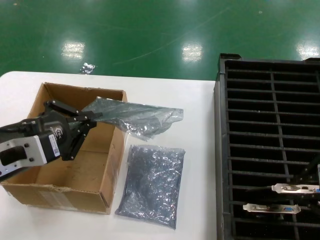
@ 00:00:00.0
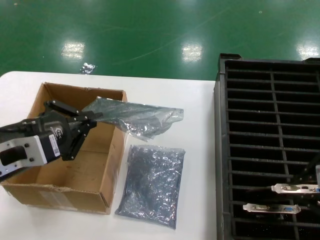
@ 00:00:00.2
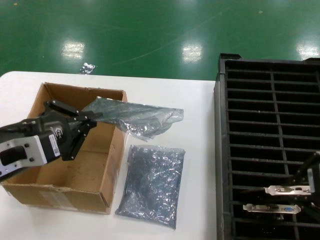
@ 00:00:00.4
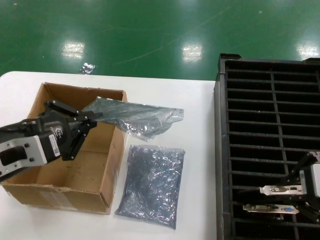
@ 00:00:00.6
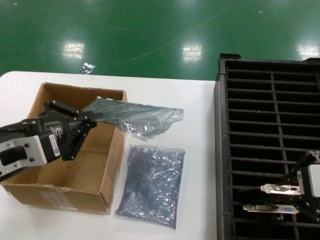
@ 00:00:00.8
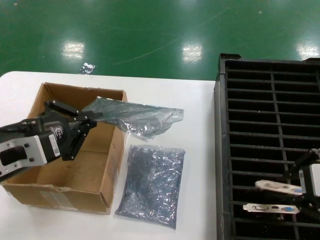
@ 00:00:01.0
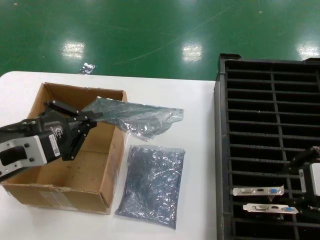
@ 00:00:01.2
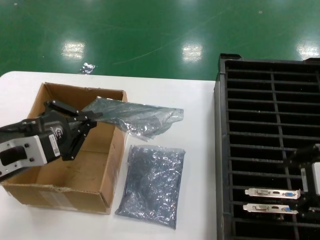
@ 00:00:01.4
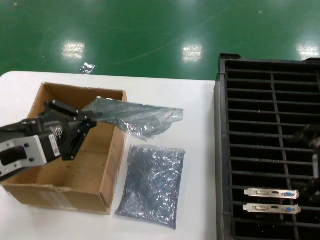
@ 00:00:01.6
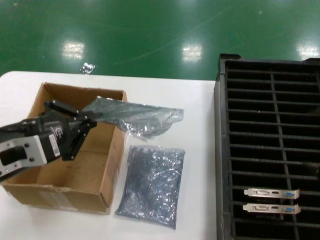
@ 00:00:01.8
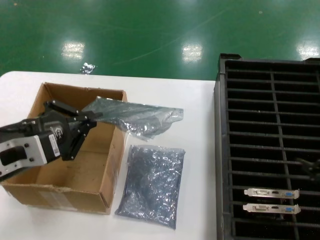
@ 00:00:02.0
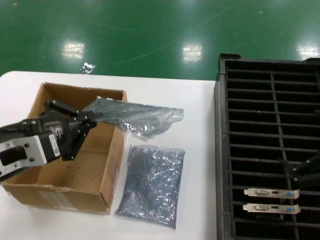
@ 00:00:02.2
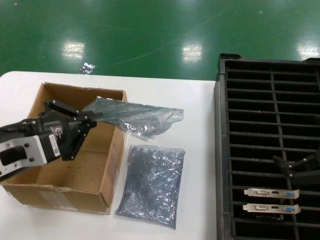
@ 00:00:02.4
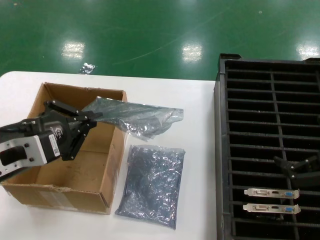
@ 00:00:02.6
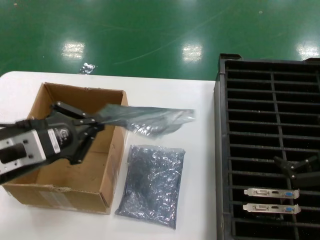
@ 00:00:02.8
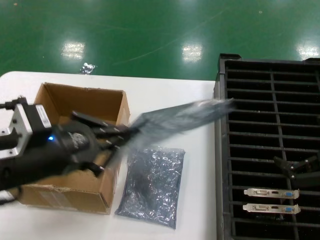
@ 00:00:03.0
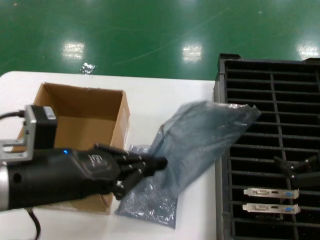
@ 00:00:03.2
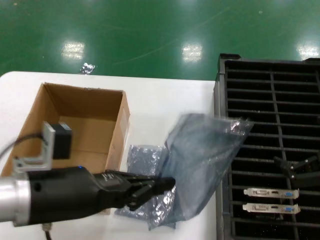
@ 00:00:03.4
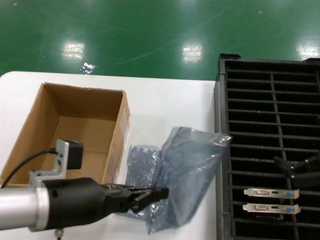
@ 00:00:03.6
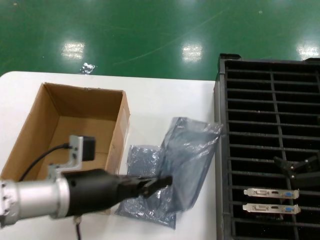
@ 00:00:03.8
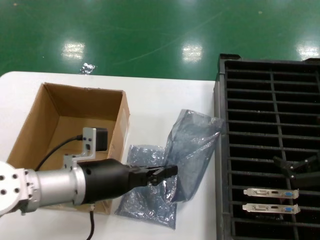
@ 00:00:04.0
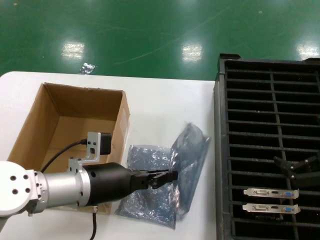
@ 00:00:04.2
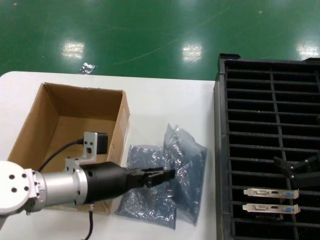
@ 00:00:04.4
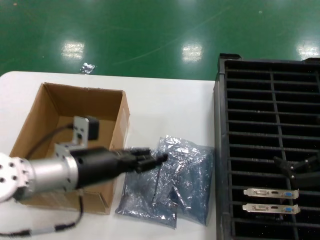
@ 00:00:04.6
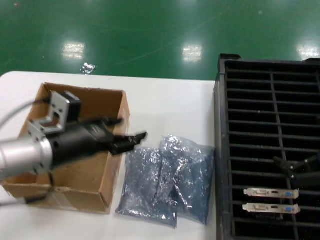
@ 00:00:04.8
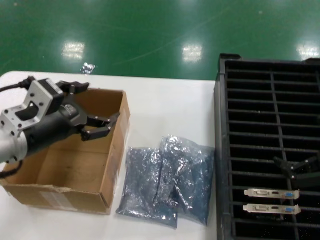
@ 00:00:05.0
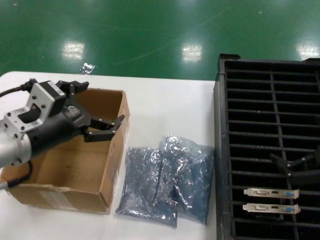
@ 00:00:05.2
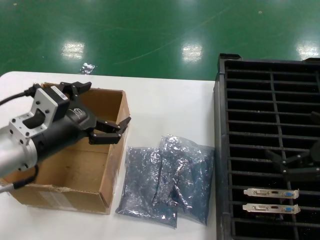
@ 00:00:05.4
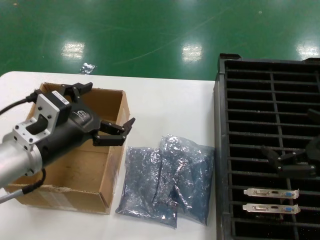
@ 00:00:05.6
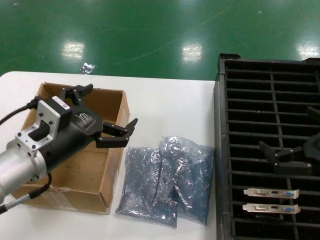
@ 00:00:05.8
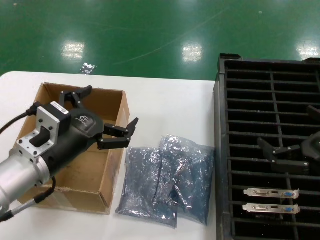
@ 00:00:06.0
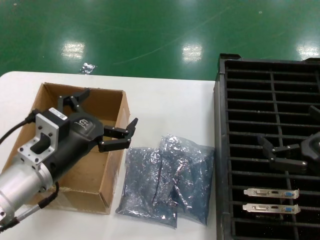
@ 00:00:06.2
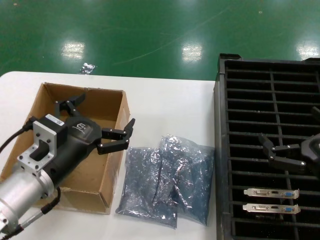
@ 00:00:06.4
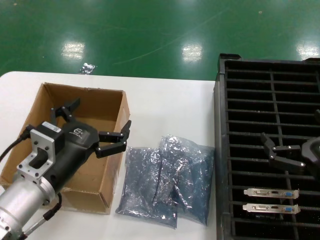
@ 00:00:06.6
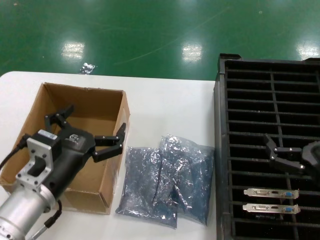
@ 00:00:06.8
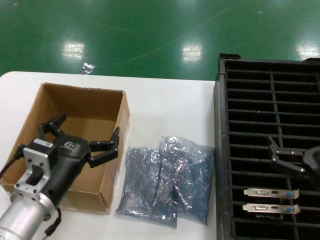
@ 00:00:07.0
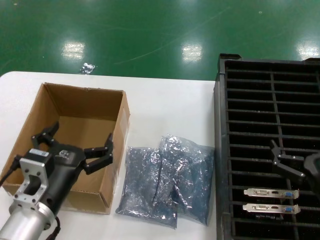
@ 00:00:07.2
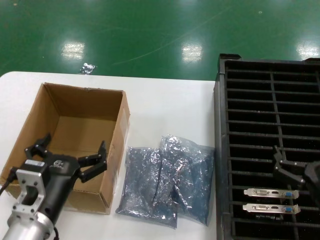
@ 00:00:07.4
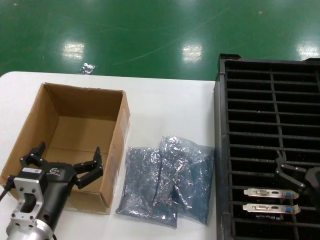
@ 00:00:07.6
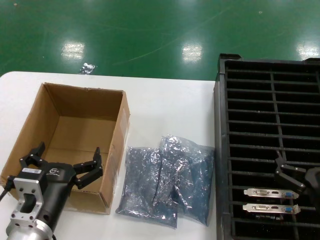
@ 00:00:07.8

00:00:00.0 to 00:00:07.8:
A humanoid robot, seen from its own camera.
Task of the whole recording: take out graphics card from box remove packaging put into black container.
Step, 00:00:01.6 to 00:00:04.4: Place the down the bag.
00:00:00.0 to 00:00:01.6: The hands move only a little.
00:00:01.6 to 00:00:03.2: The right hand heads downward and to the right, covering approximately 10 cm.
00:00:03.2 to 00:00:04.6: The left hand moves forward and downward, roughly 15 cm.
00:00:04.6 to 00:00:06.2: The right hand shifts approximately 5 cm downward. The left hand goes some 5 cm backward, and moves about 10 cm upward and comes back.
00:00:06.2 to 00:00:07.8: The two hands go approximately 10 cm downward.
